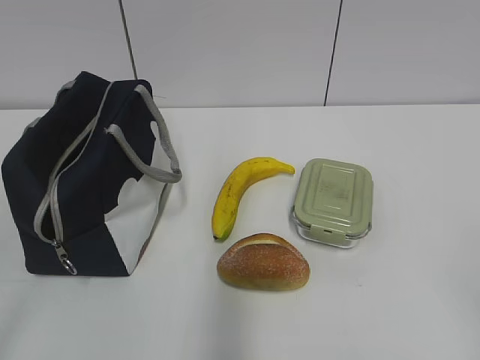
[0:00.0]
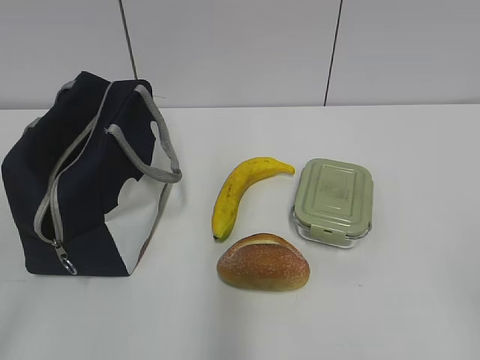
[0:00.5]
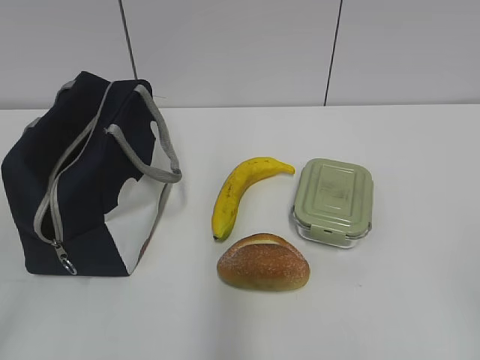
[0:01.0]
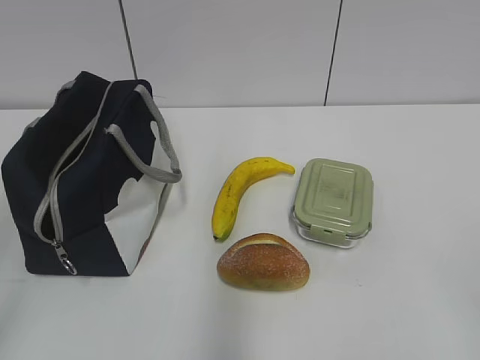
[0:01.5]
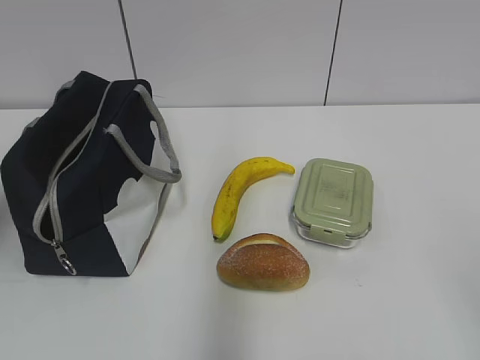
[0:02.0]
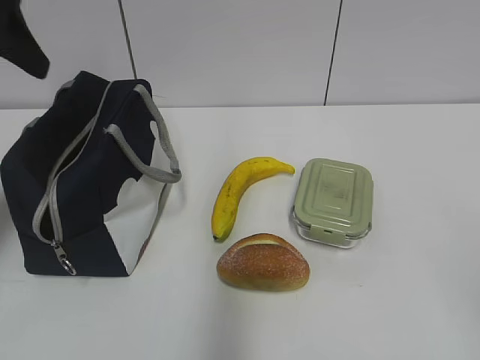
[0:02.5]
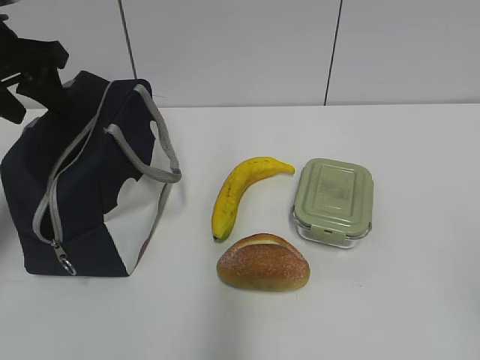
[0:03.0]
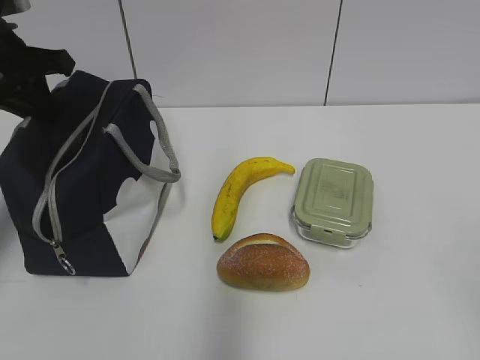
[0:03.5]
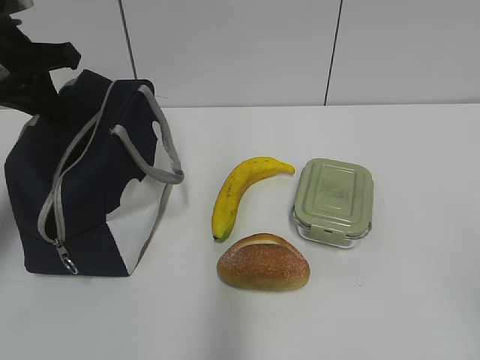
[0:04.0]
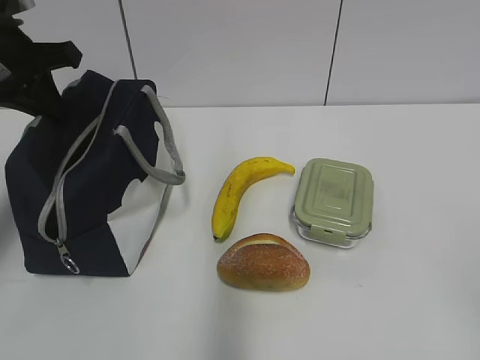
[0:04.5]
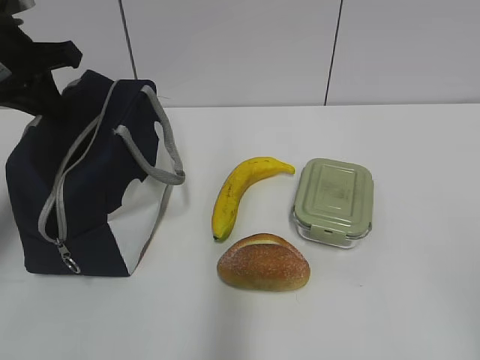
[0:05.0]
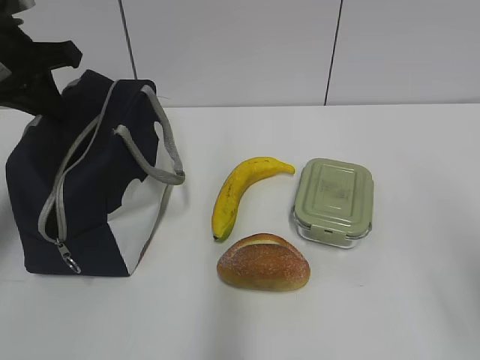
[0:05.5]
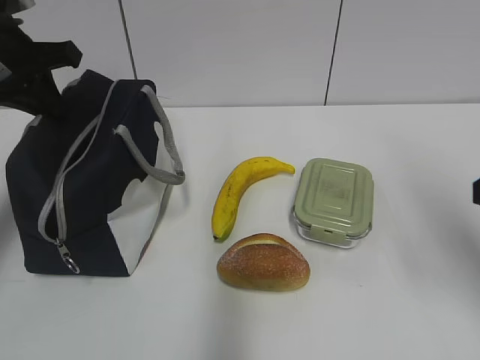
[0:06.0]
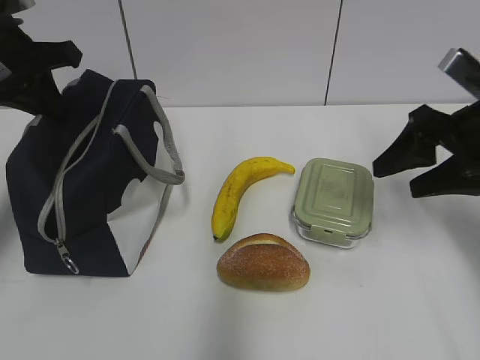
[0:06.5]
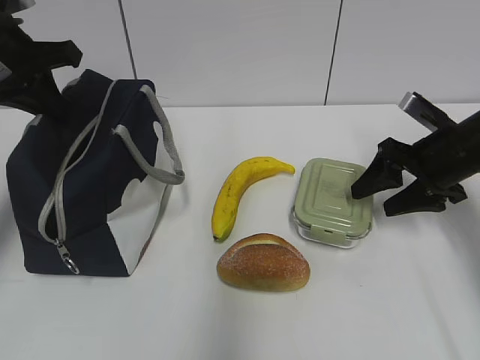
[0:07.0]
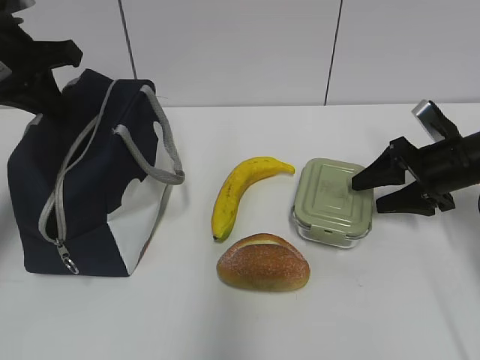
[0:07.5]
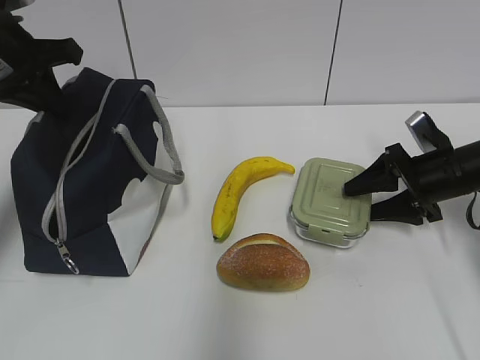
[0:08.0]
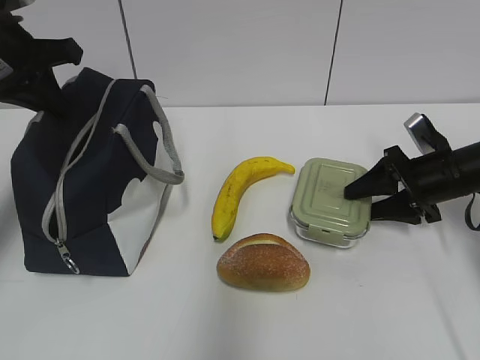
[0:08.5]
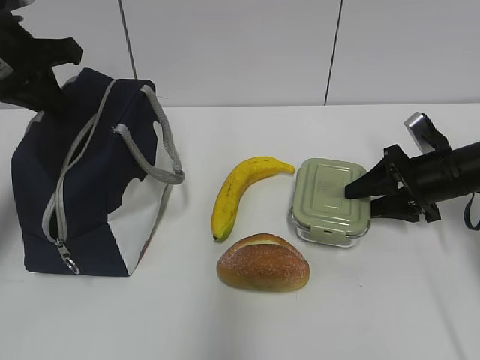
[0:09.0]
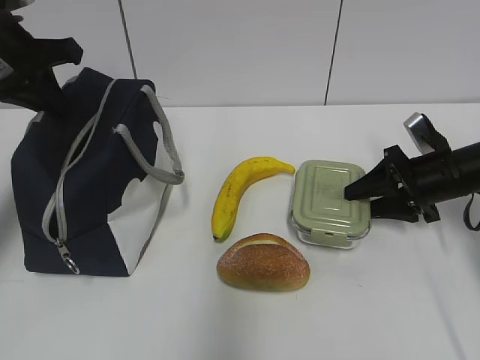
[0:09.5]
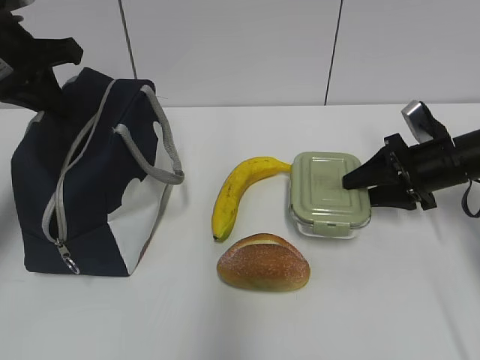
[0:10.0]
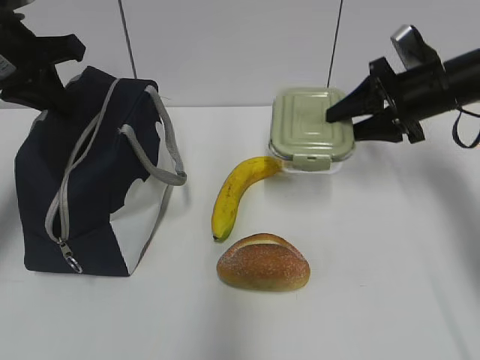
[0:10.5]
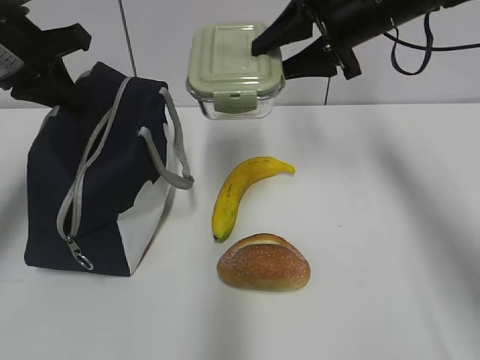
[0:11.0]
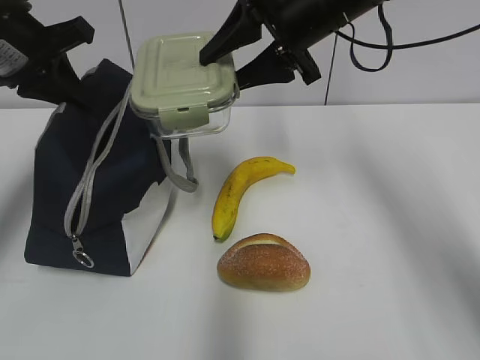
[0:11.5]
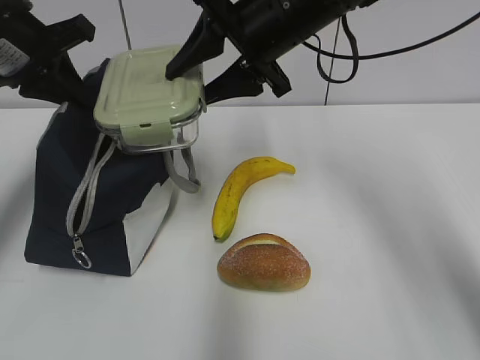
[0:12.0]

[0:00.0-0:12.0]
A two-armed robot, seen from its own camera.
0:02.0 to 0:04.0: The left gripper shifts roughly 20 cm forward and downward, and closes.
0:04.0 to 0:06.0: The right gripper goes approximately 20 cm forward.
0:06.0 to 0:08.0: The right gripper heads forward and downward, covering about 25 cm.
0:08.0 to 0:10.0: Neither gripper changes place.
0:10.0 to 0:12.0: The right gripper goes approximately 30 cm to the left and upward.

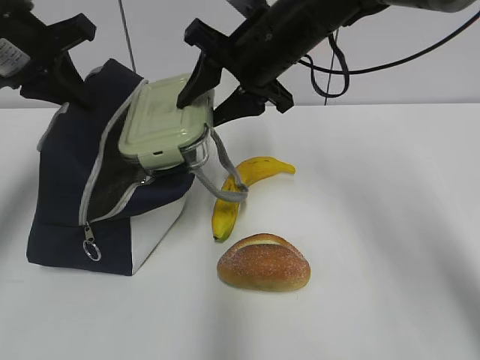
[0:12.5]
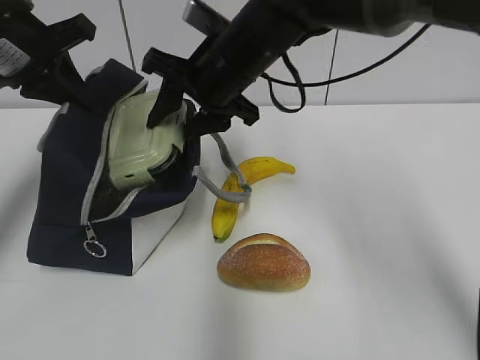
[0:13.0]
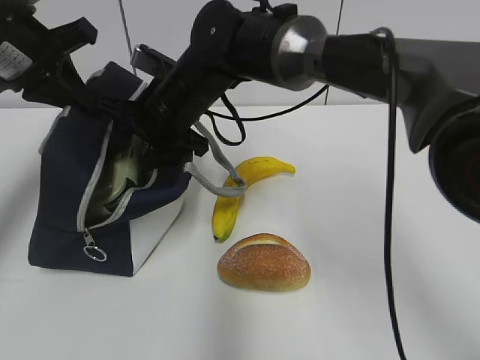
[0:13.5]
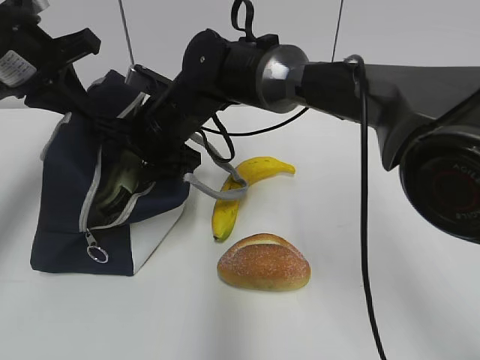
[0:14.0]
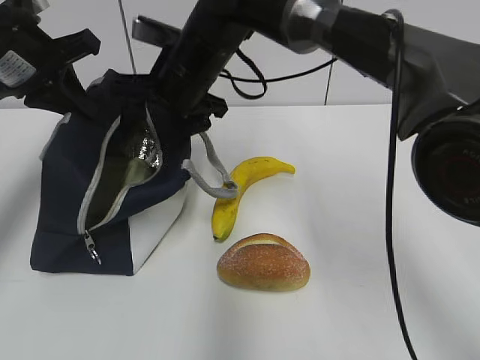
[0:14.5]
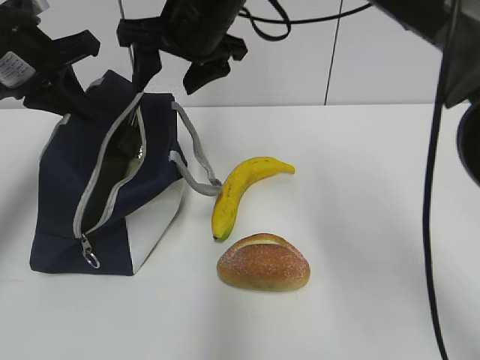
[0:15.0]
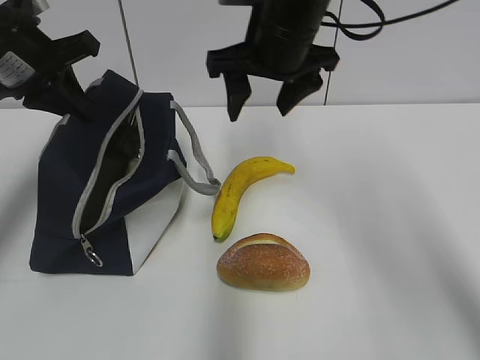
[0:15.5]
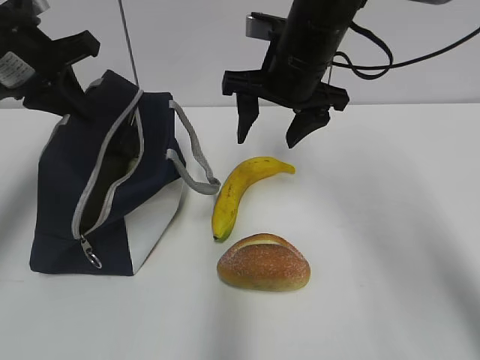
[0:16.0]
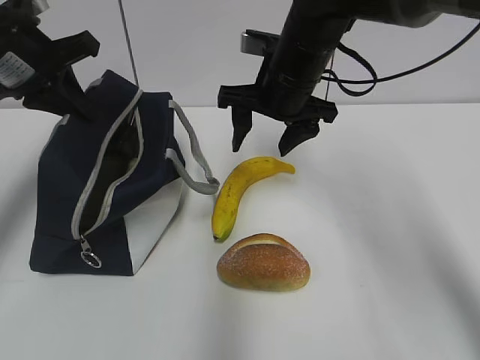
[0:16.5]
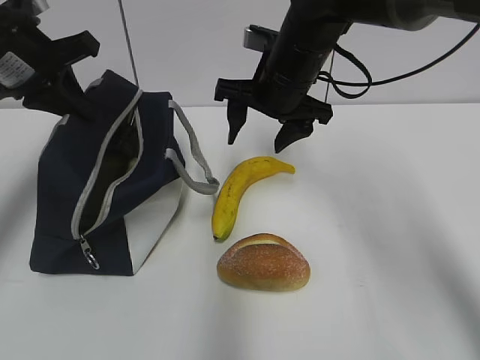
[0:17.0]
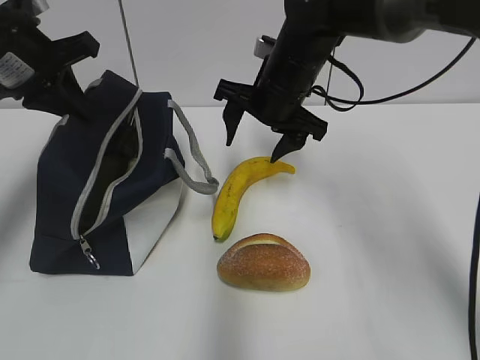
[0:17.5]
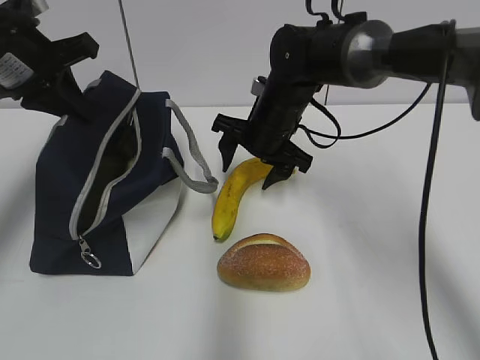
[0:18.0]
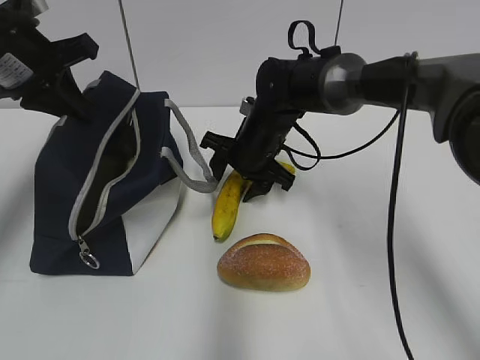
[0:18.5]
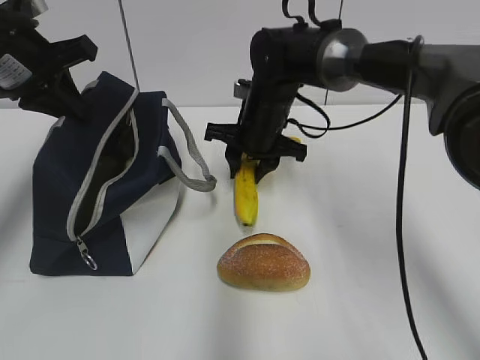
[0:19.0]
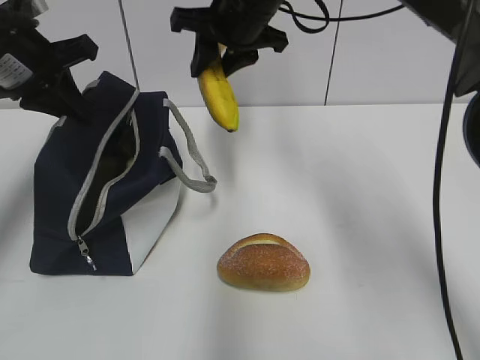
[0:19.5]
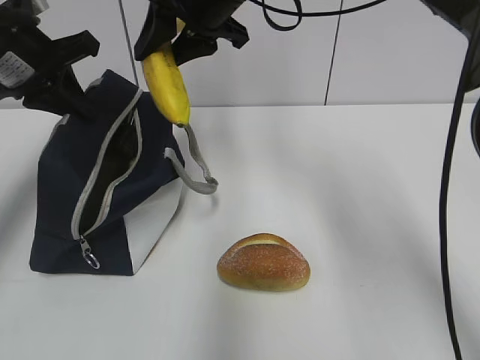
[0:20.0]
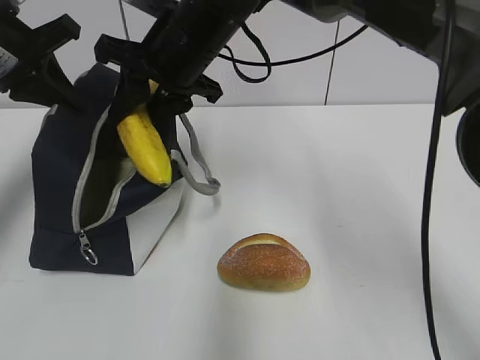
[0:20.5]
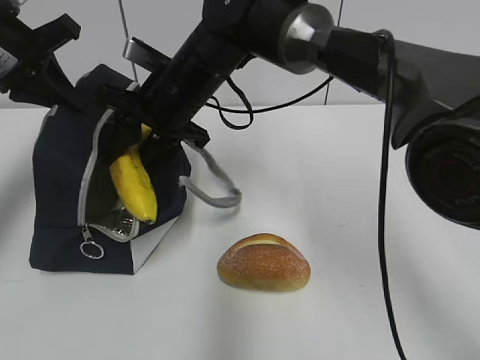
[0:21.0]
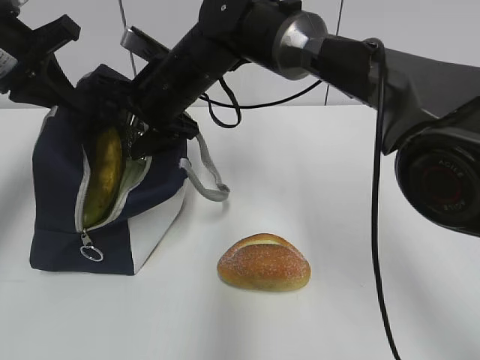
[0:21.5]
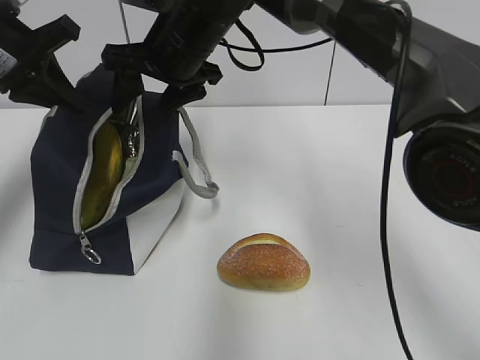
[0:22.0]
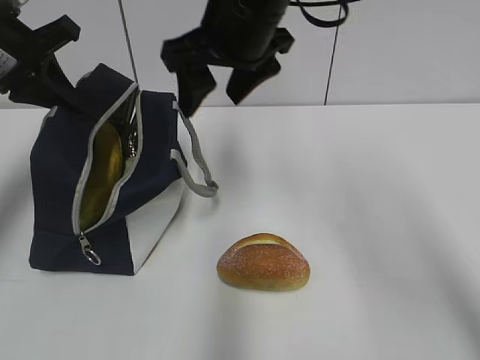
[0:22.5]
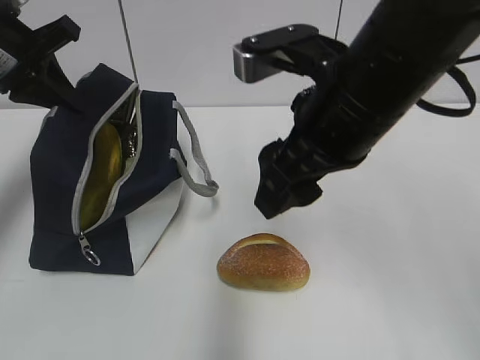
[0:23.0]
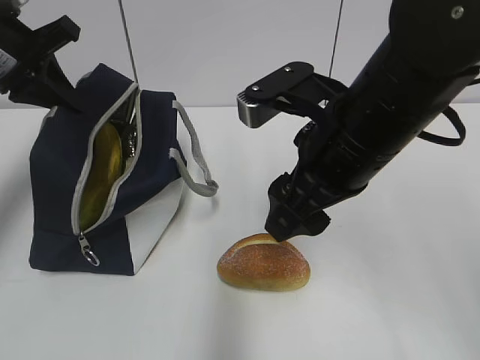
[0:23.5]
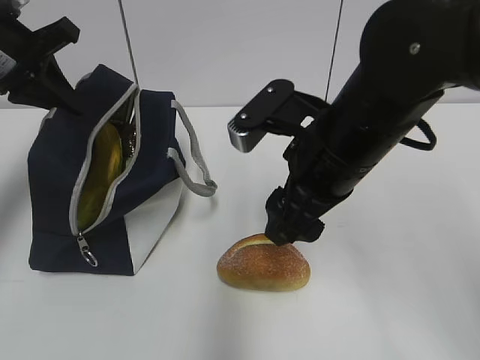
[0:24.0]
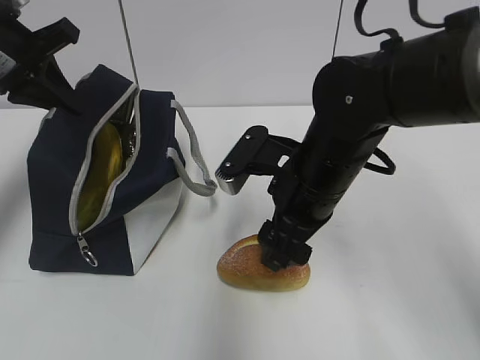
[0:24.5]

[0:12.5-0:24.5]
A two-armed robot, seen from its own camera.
0:12.5 to 0:14.5: The right gripper travels to the left by roughly 10 cm.
0:14.5 to 0:16.5: The right gripper moves to the right, about 10 cm.
0:16.5 to 0:18.5: The right gripper goes approximately 10 cm downward.
0:18.5 to 0:20.5: The right gripper heads upward and to the left, covering approximately 15 cm, and closes.
0:20.5 to 0:22.5: The right gripper shifts roughly 5 cm to the right, and opens.
0:22.5 to 0:24.5: The right gripper heads downward and backward, covering some 15 cm.

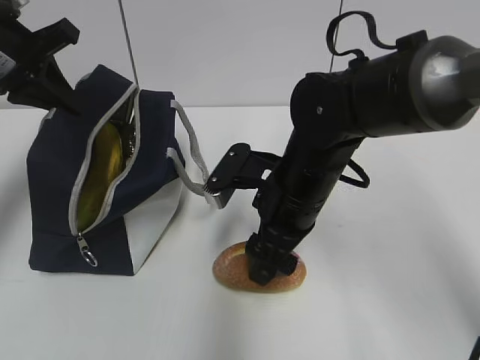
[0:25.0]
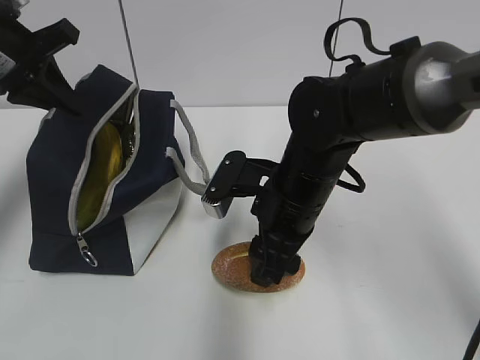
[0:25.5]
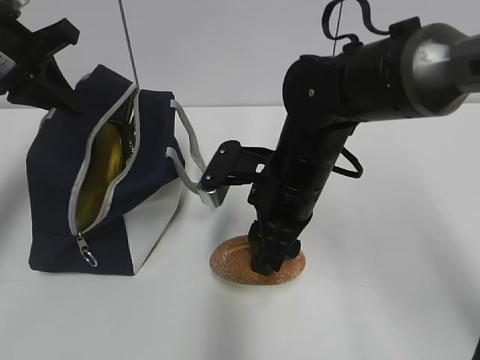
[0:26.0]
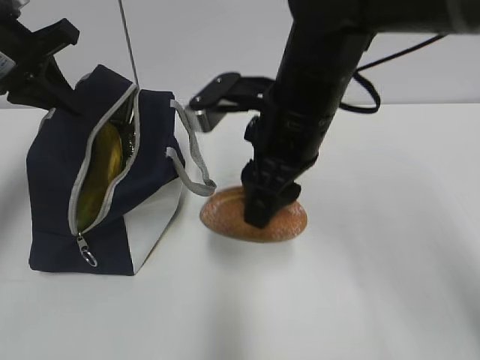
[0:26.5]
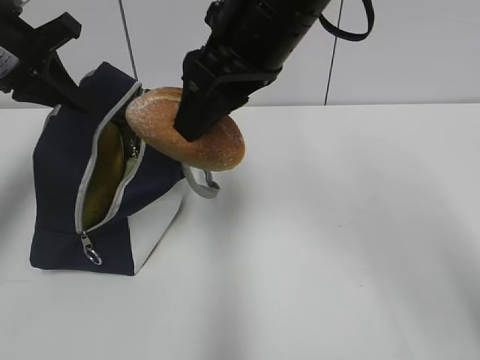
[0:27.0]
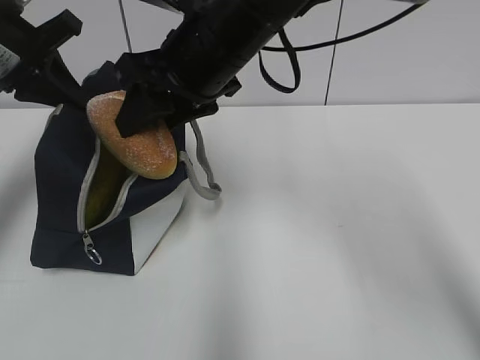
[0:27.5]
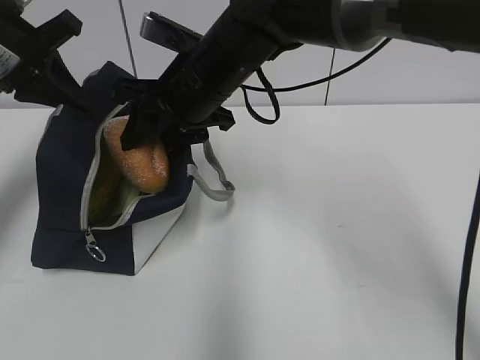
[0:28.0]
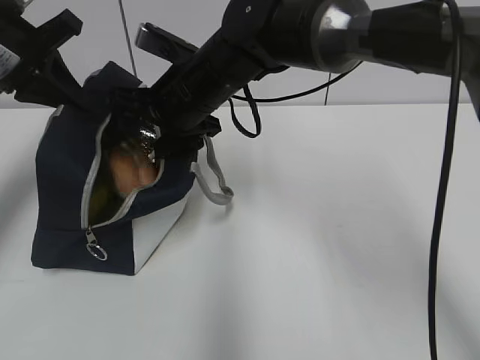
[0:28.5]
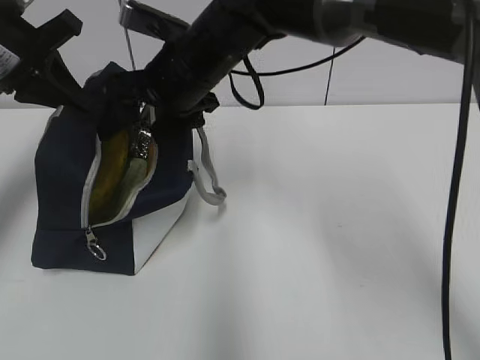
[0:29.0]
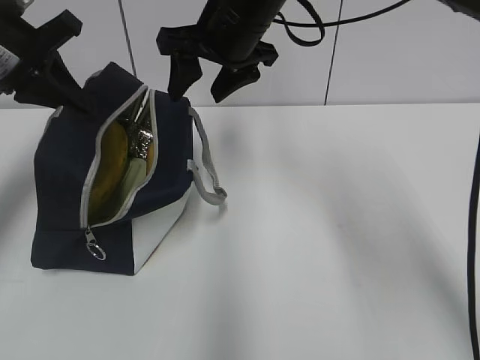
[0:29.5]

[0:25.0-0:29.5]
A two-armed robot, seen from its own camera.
0:25.0 to 0:27.0: The right gripper goes approximately 20 cm upward, and closes up.
0:27.0 to 0:29.5: The right gripper shifts approximately 10 cm forward.
